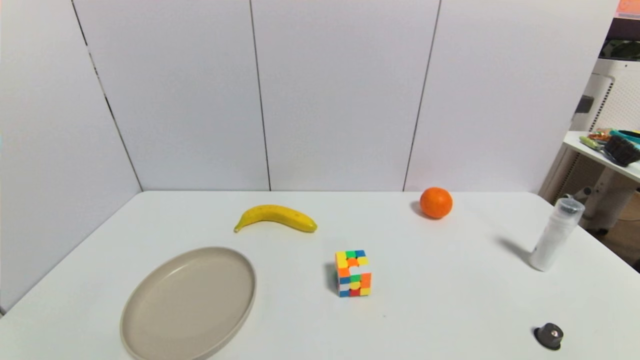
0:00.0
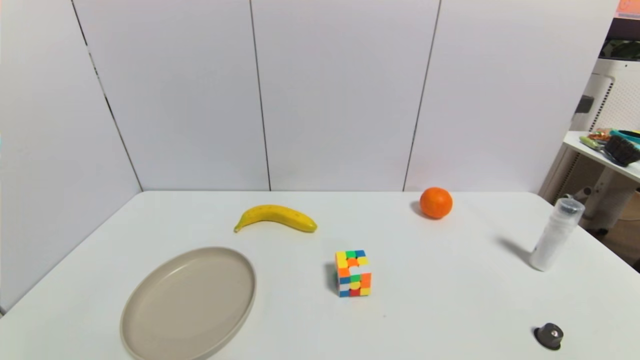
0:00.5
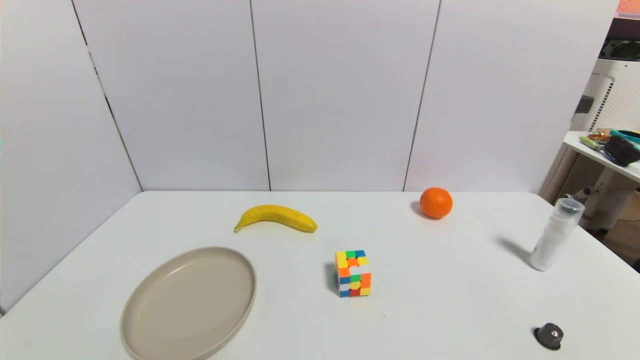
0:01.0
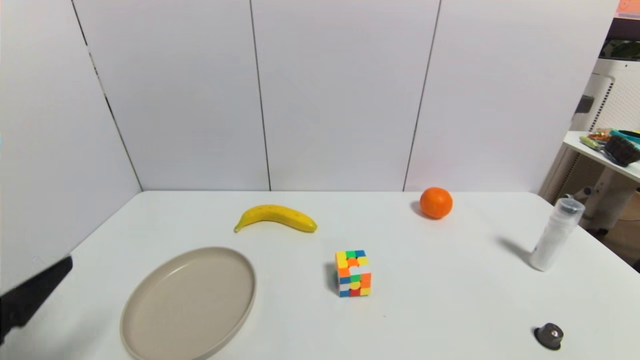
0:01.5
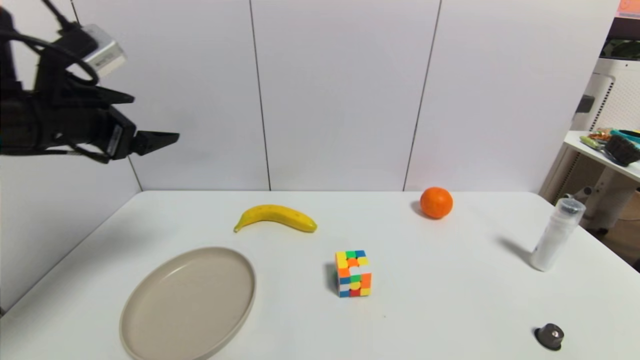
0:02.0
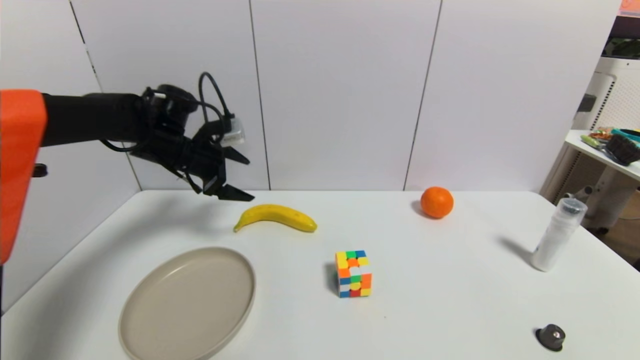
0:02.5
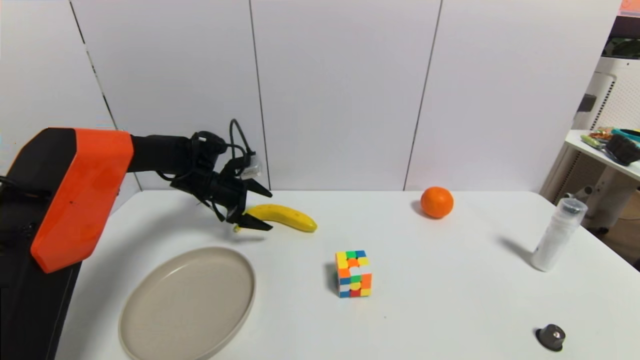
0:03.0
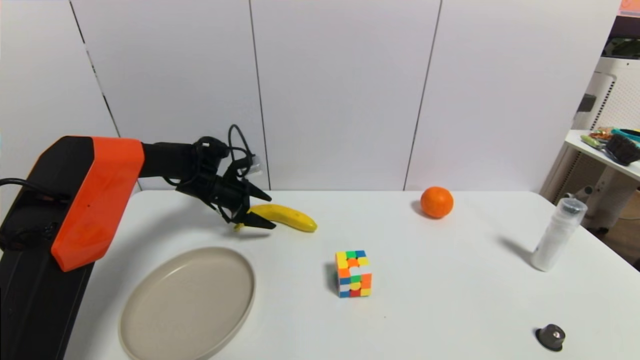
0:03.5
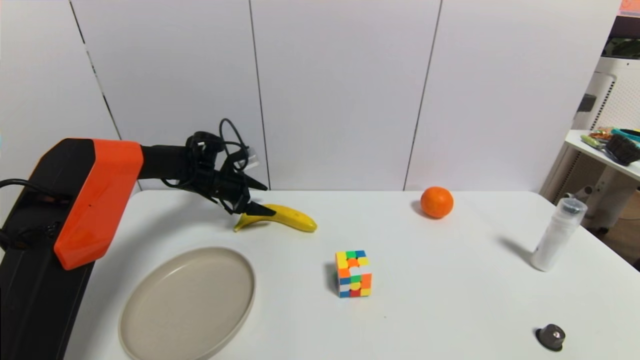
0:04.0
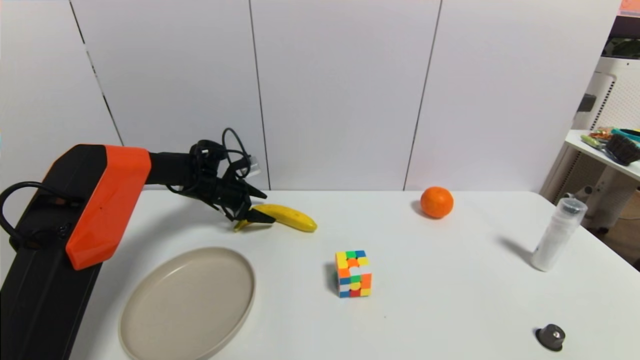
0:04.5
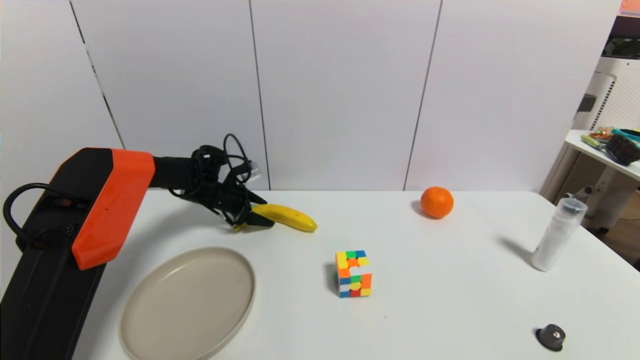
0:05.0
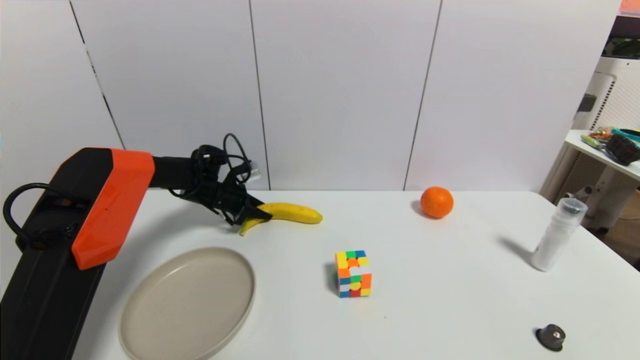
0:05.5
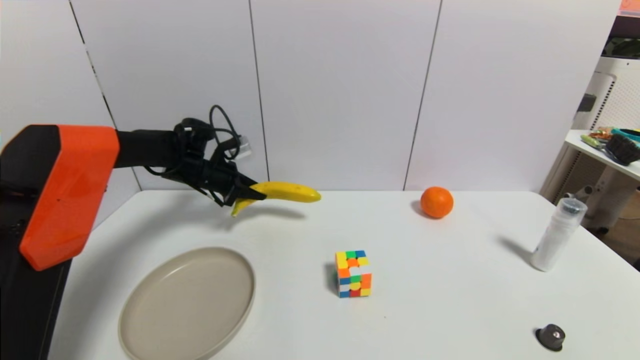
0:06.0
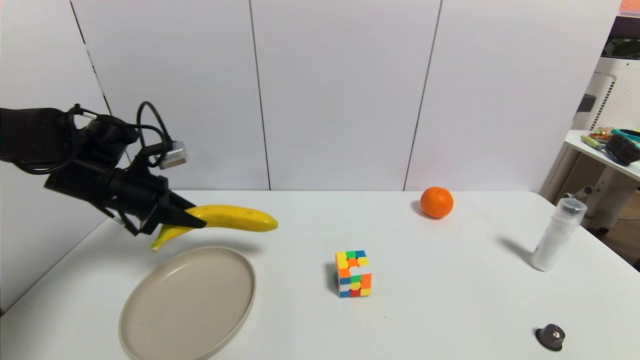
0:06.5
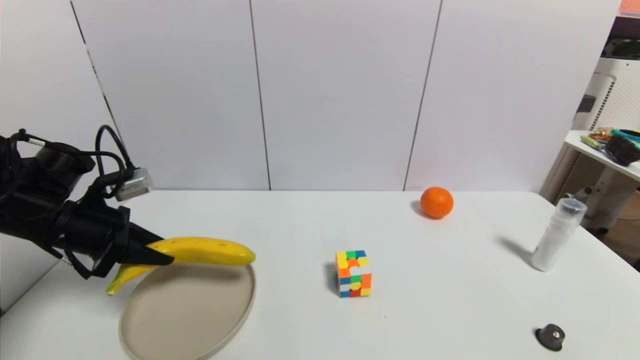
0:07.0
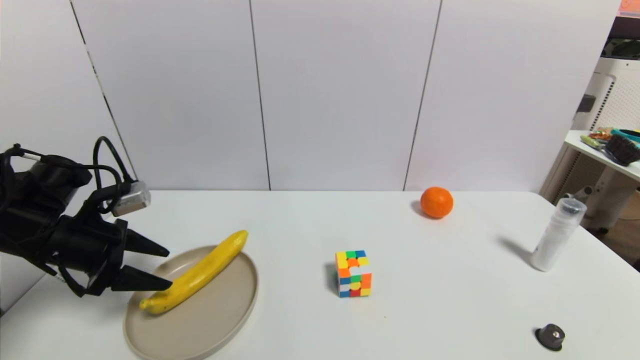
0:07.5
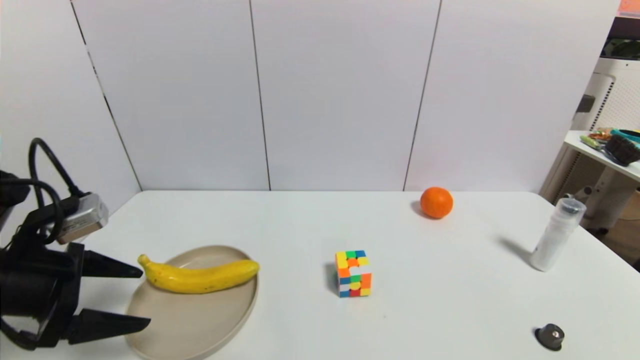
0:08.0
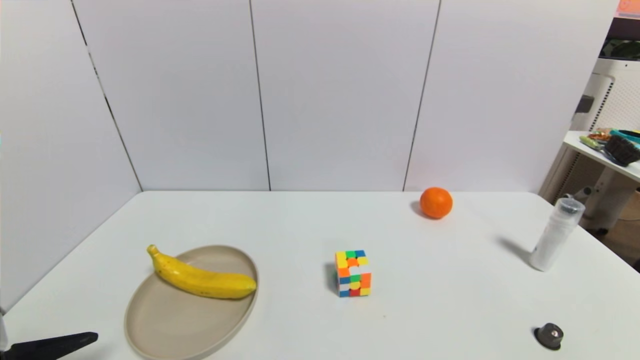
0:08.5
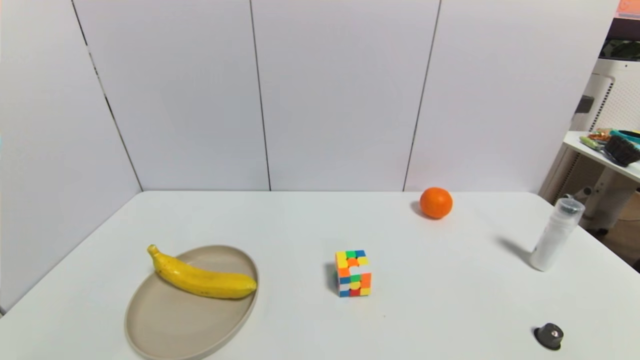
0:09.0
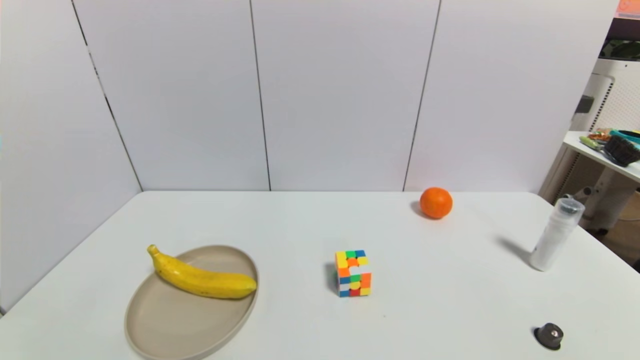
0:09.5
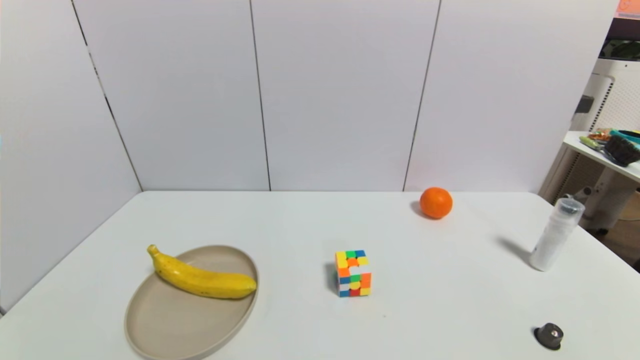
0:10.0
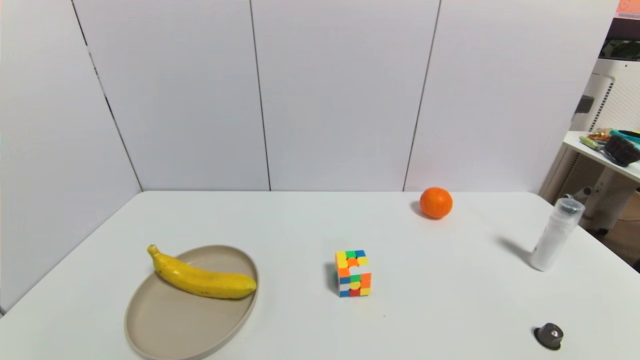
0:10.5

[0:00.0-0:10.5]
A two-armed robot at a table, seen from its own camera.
Task of the whole recording: use a gripper to pick the target object and place on the brown plate.
Step, 0:00.0 to 0:05.5: Grasp the banana with the left gripper.
Step, 0:06.0 to 0:07.5: Place the banana on the brown plate with the left gripper.
0:00.0 to 0:02.0: The left gripper shifts approximately 40 cm forward and upward.
0:02.0 to 0:04.0: The left gripper shifts about 30 cm downward and forward.
0:04.0 to 0:06.5: The left gripper heads backward, upward and to the left, covering approximately 20 cm, and closes its fingers.
0:06.5 to 0:08.5: The left gripper moves backward, some 30 cm, and opens up.
0:08.5 to 0:10.5: The left gripper moves downward and backward, roughly 10 cm.
